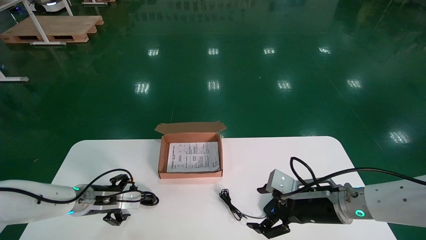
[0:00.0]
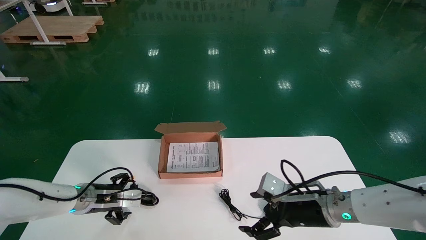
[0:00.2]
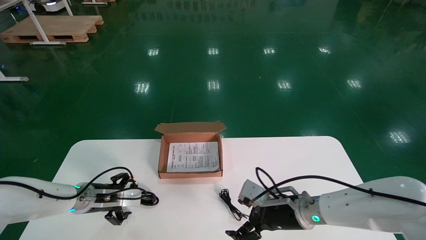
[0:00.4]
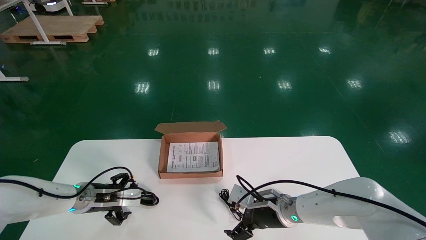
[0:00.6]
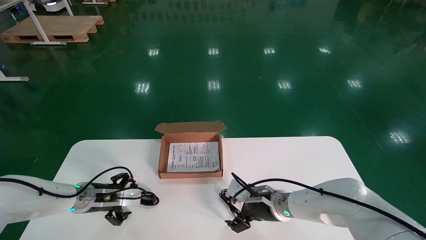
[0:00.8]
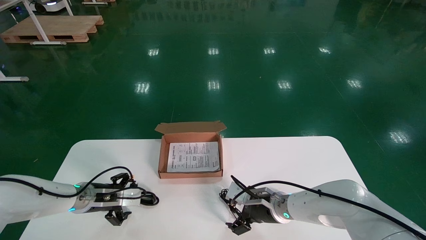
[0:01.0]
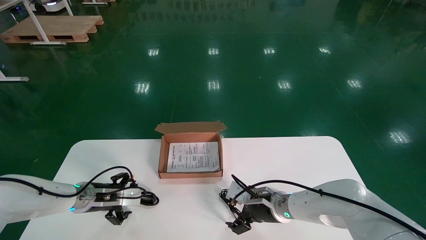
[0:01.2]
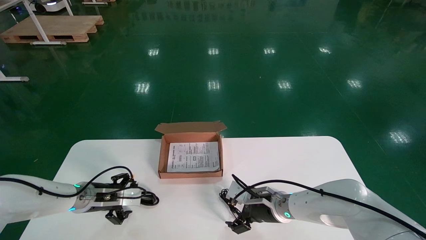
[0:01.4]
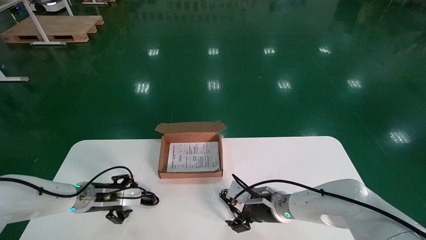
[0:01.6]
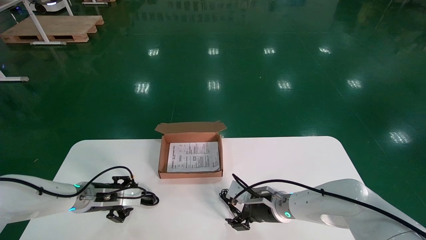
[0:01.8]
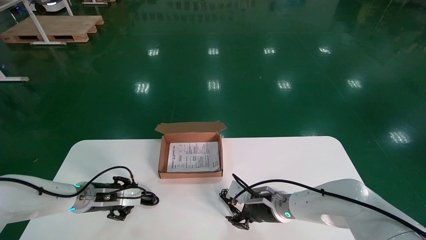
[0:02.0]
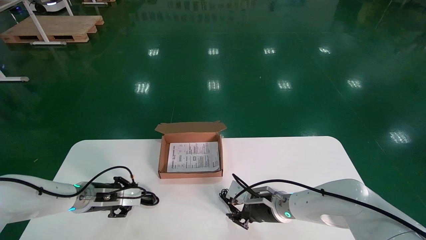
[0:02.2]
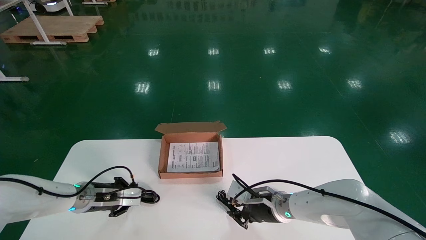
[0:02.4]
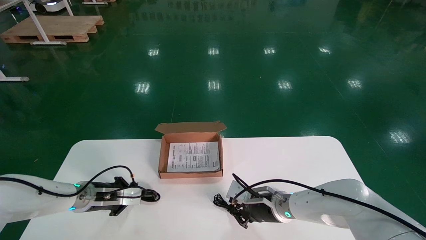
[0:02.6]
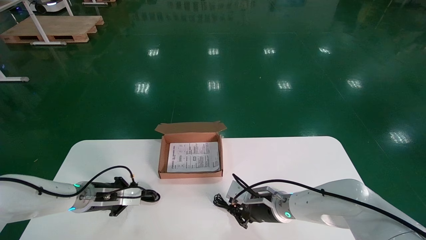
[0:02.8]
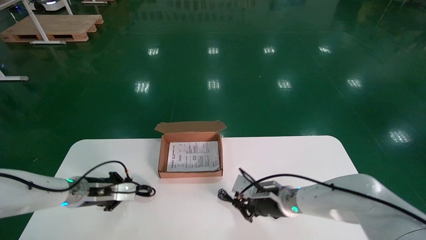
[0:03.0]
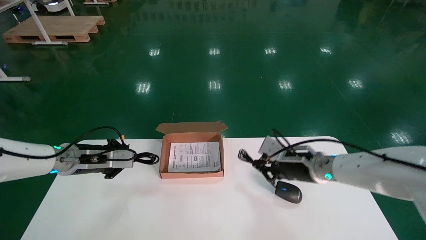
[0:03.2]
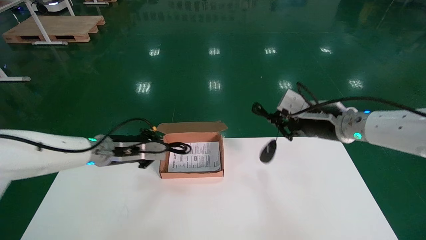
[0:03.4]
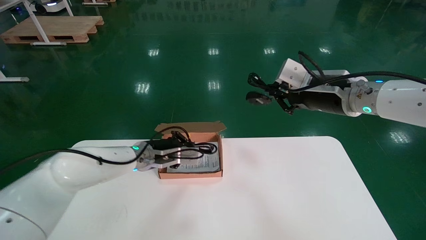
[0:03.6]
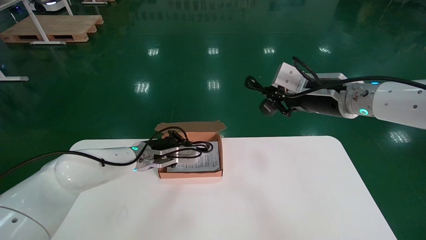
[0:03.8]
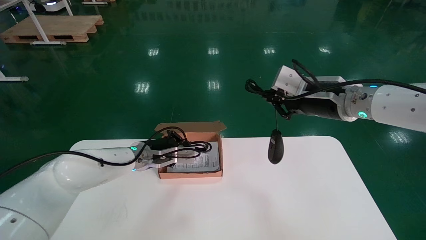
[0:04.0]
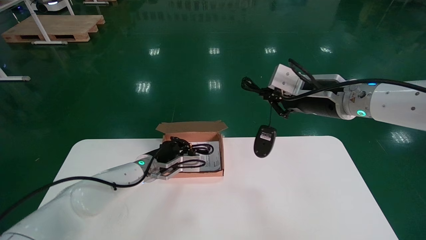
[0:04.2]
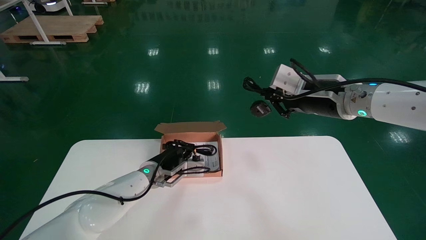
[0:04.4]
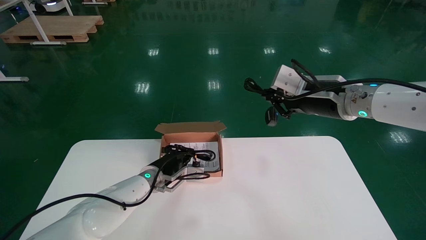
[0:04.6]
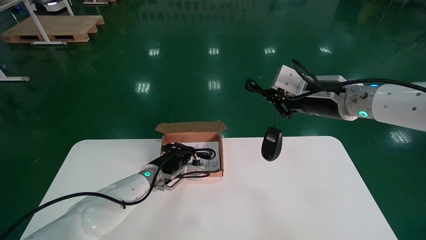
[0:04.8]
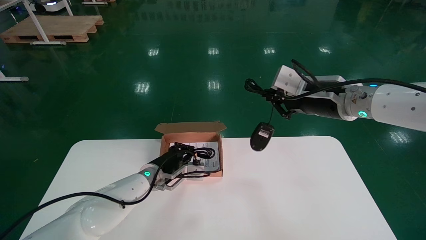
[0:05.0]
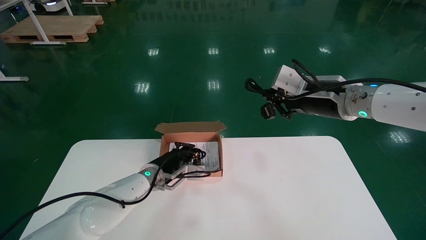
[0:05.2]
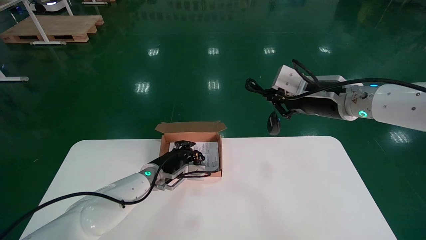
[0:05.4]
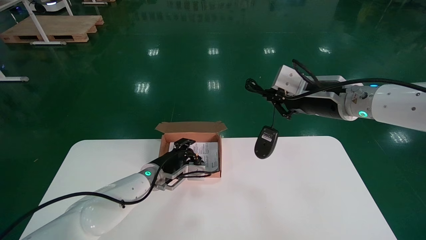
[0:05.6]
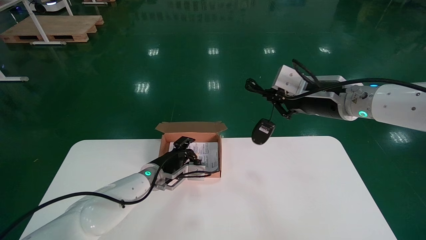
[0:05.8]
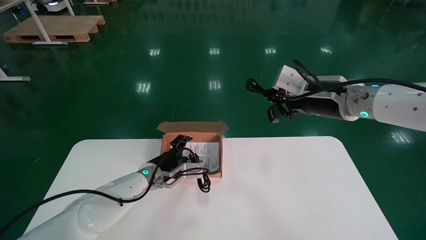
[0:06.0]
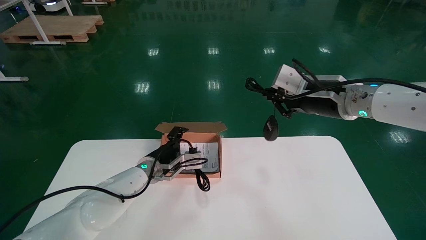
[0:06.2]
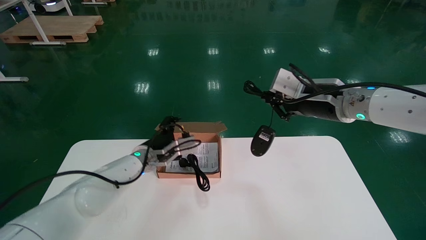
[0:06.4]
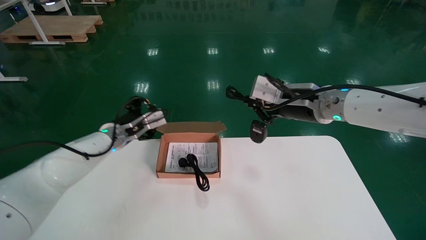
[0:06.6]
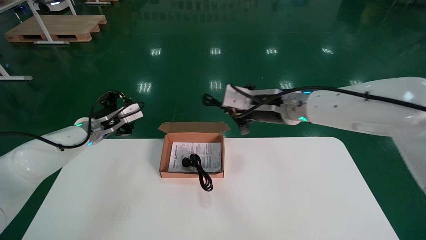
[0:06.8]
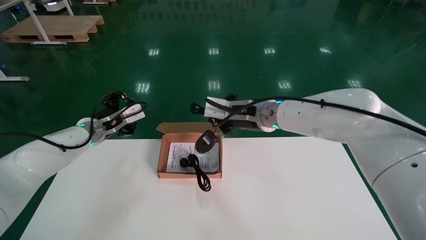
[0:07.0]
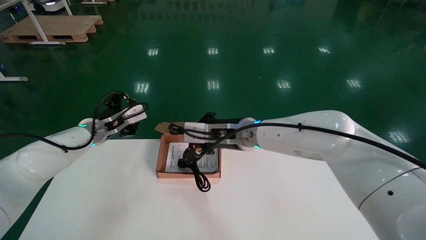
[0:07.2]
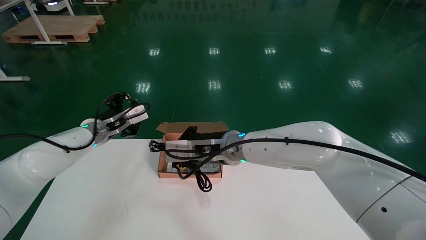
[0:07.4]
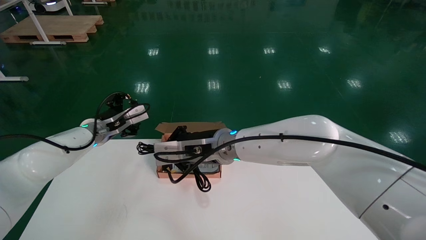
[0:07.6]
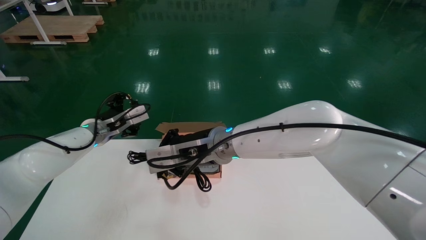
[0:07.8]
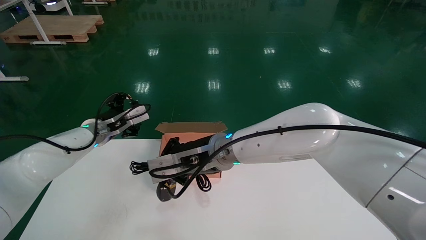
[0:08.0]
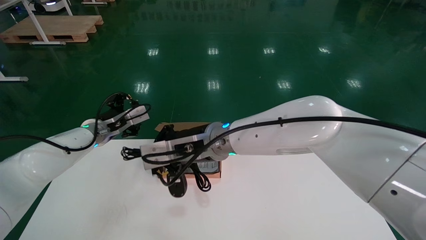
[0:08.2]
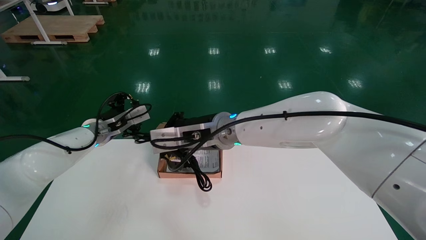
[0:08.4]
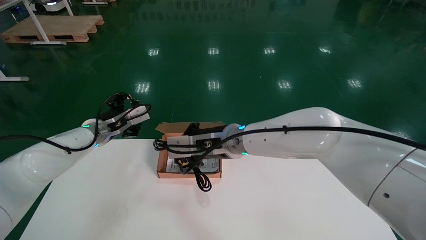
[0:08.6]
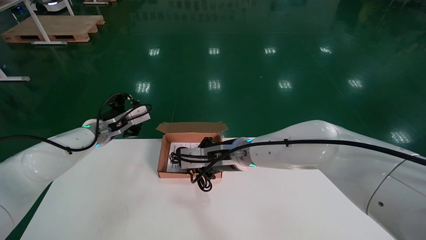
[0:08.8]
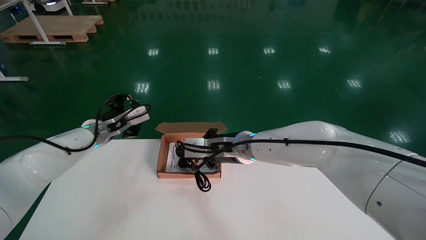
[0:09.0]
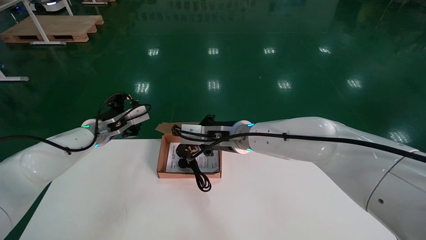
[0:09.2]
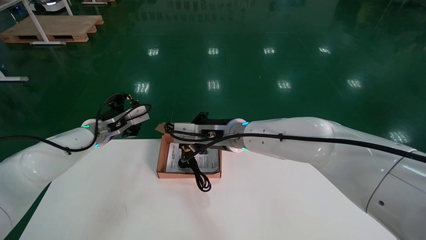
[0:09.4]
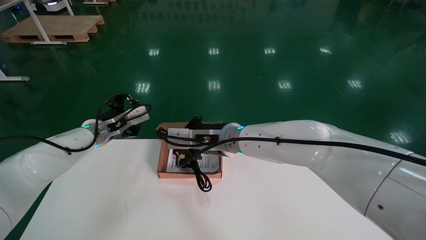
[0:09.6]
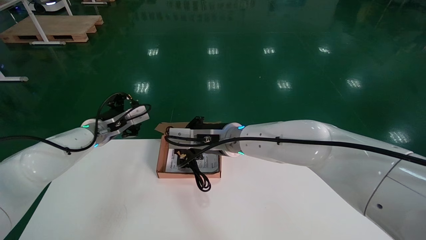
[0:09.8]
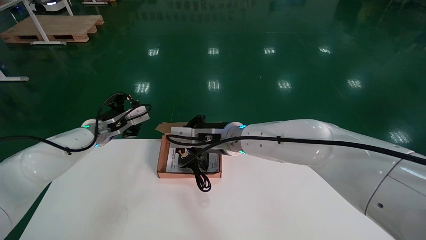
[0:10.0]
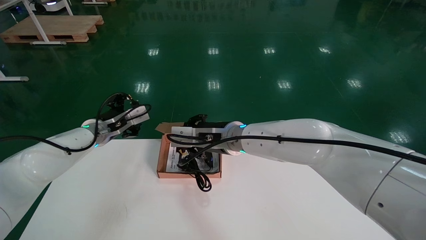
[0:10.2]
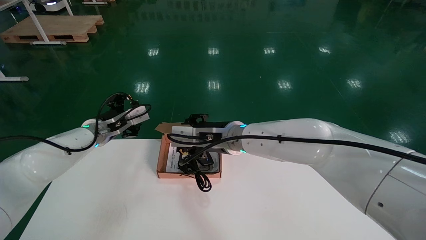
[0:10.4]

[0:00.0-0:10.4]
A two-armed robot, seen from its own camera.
Step, 0:00.0 to 0:03.2: Simultaneously pick up the mouse and power cord from the accessory packaging area.
Step, 0:03.4 to 0:10.2: Place the mouse and power cord into the box.
0:00.0 to 0:01.4: The right gripper shifts about 15 cm forward, to the left and downward.
0:01.4 to 0:03.0: Both grippers move upward, about 5 cm. The right gripper closes. The left gripper closes its fingers.
0:03.0 to 0:04.4: The left gripper shifts roughly 15 cm to the right. Meanwhile the right gripper is displaced upward by approximately 20 cm.
0:04.4 to 0:06.0: The left gripper opens its fingers.
0:06.0 to 0:07.4: The right gripper moves to the left and downward, approximately 25 cm, while the left gripper goes some 15 cm to the left and upward.
0:07.4 to 0:09.0: There are only small adjustments of the grippers.
0:09.0 to 0:10.4: The right gripper opens up.

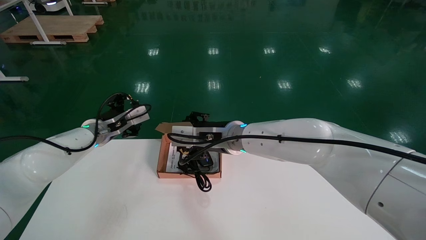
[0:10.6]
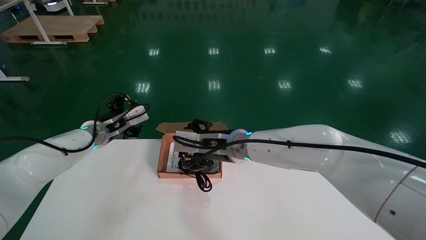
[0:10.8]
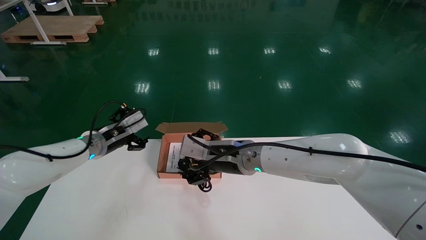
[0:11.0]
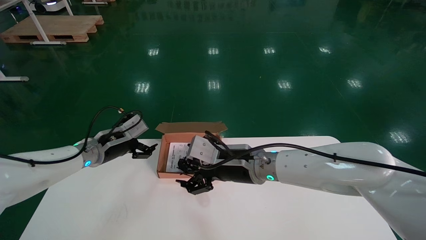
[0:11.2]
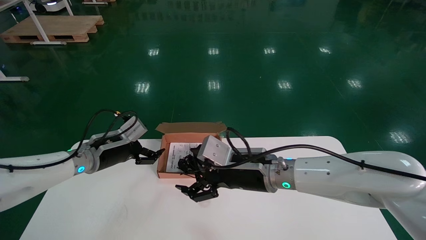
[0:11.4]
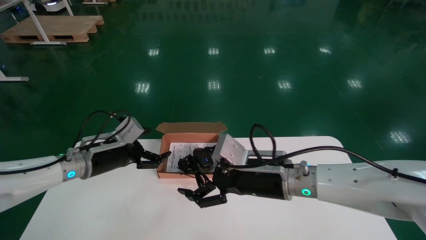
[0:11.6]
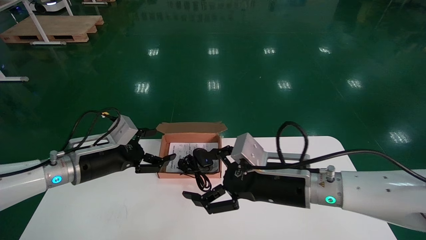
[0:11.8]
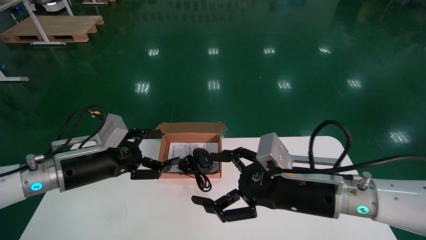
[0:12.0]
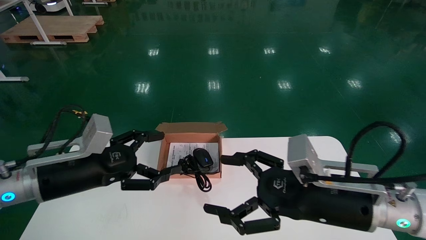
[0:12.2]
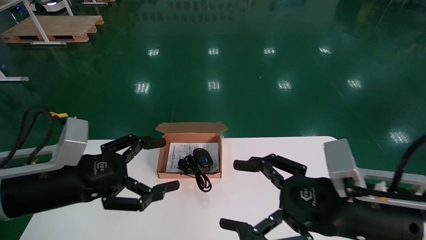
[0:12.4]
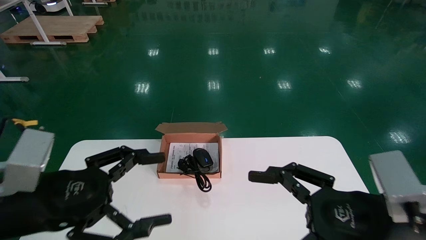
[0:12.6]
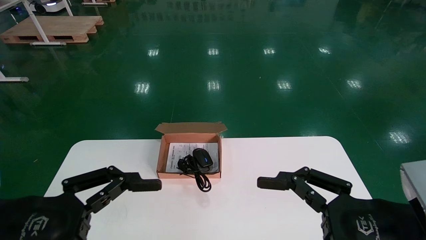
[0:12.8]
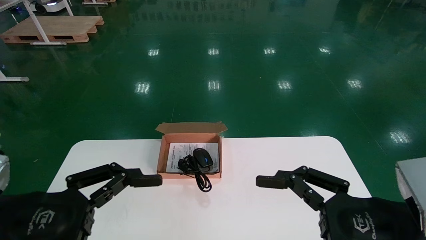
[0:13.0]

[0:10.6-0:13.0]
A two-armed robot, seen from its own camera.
0:10.6 to 0:11.8: The left gripper shifts about 10 cm backward; the right gripper is displaced to the right and backward by roughly 15 cm, and opens up.
0:11.8 to 0:13.0: The left gripper heads backward, covering some 20 cm; the right gripper is displaced backward and to the right by about 20 cm.
